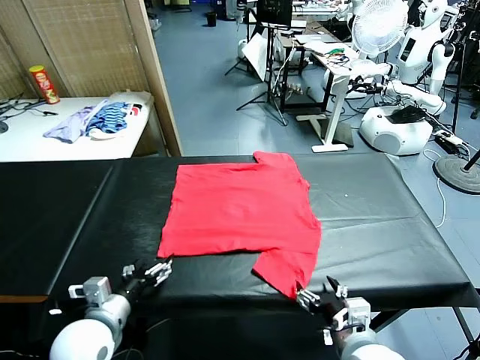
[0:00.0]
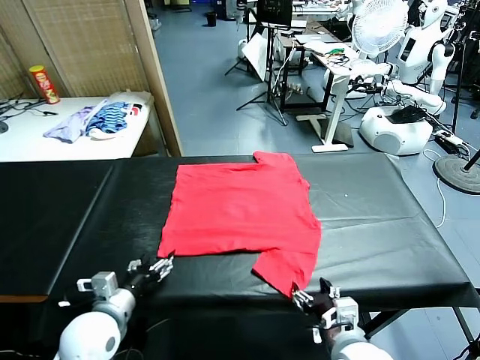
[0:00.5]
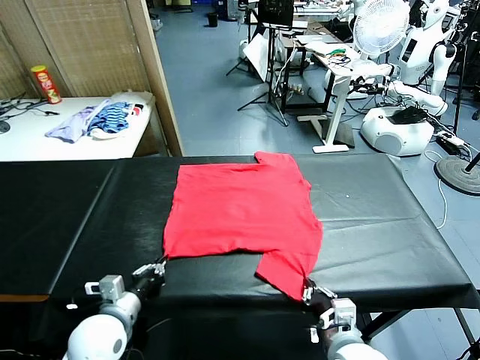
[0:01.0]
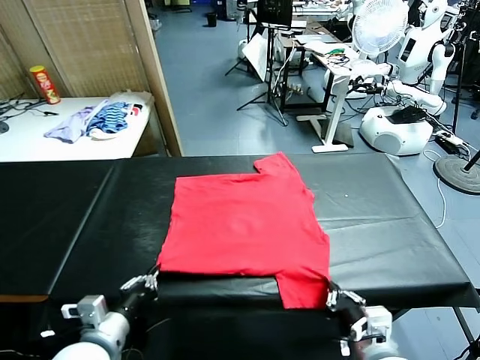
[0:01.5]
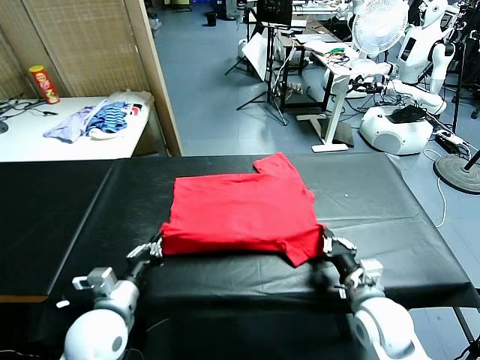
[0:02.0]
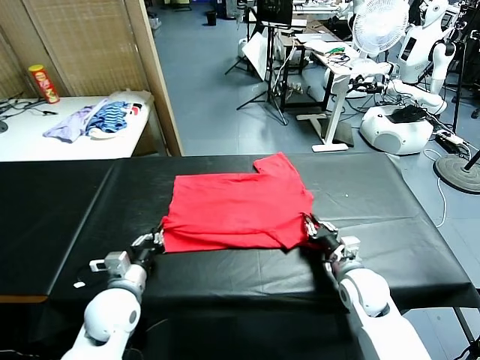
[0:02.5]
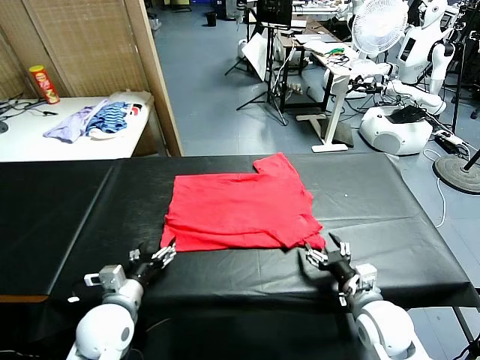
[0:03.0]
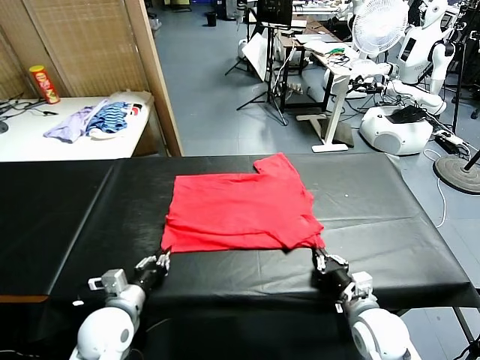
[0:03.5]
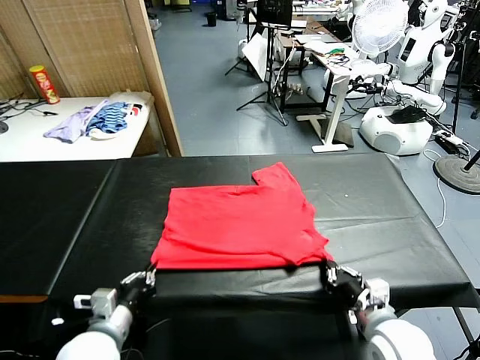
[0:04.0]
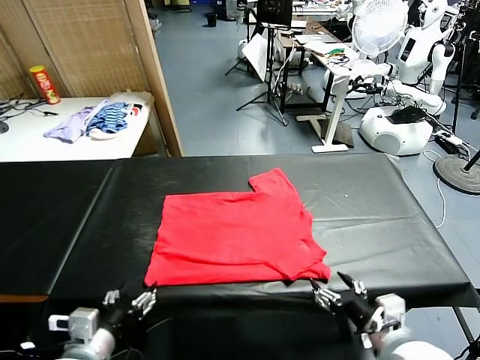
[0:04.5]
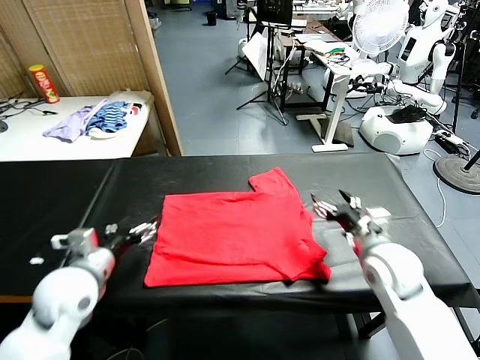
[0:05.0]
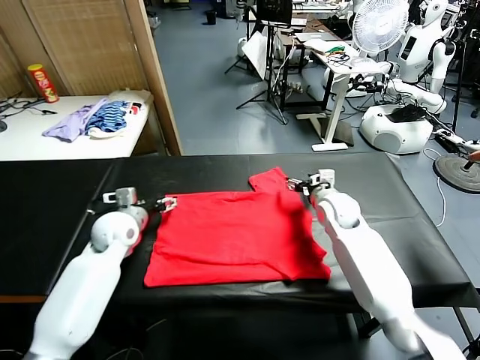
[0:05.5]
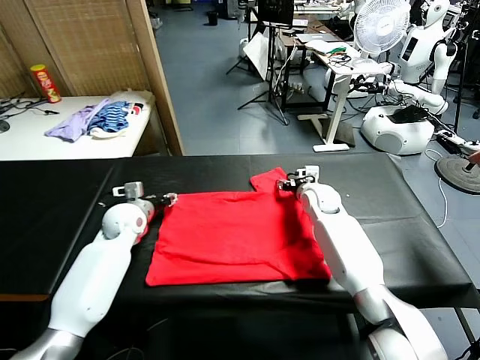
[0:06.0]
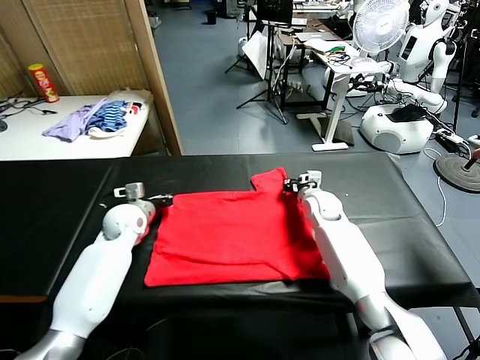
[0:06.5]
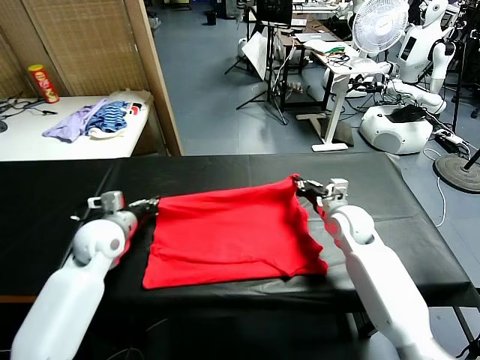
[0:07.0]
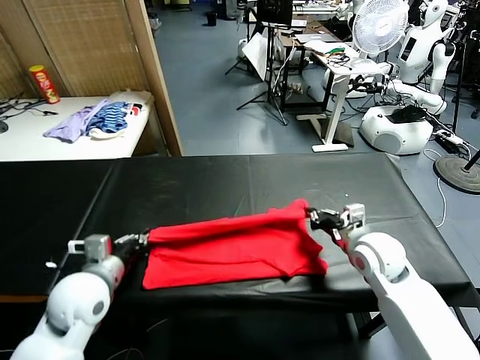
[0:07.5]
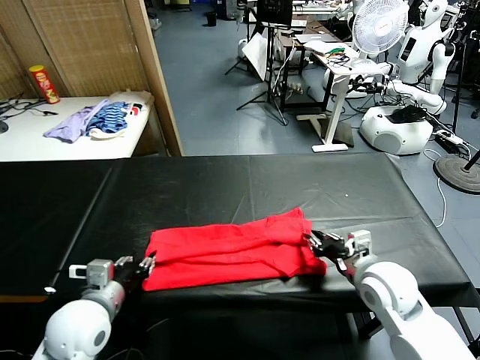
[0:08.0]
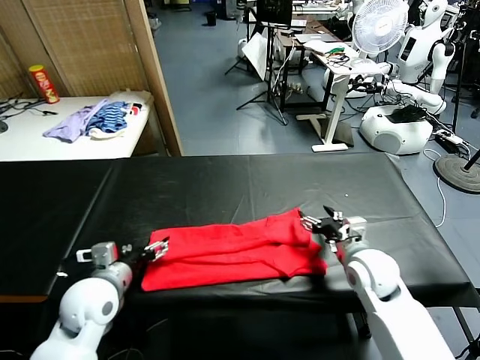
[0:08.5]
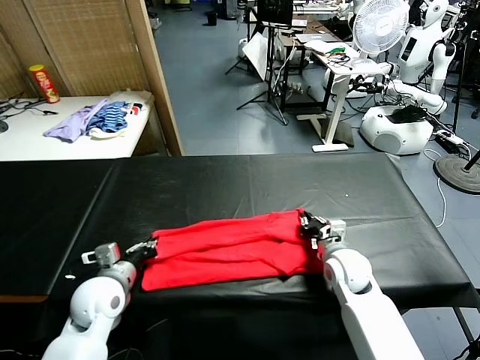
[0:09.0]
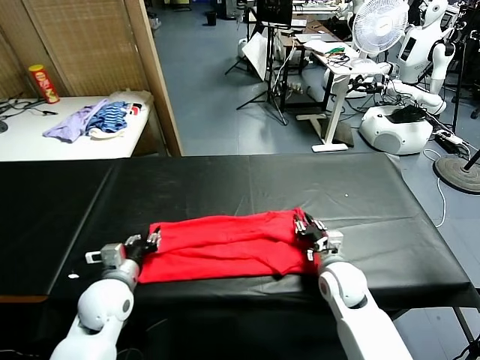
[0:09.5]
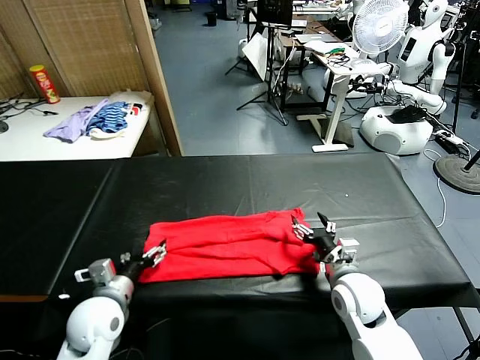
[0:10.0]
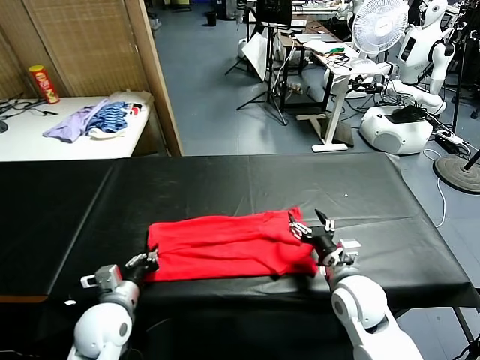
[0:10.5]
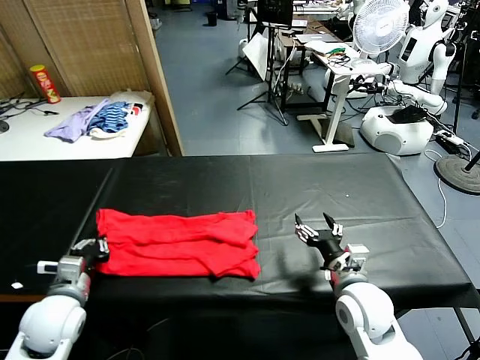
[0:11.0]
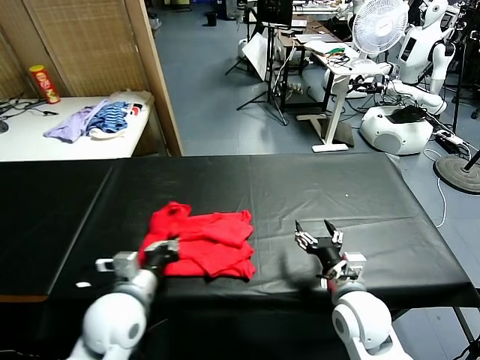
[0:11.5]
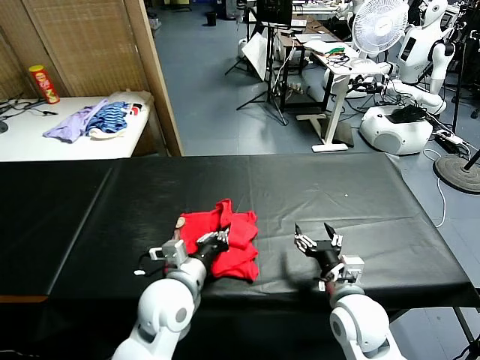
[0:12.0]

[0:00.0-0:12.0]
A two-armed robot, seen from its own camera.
Task of the whole recording: fold and organize the clothes.
Step, 0:00.0 to 0:01.0: use both grippers simultaneously to clamp the lower edge of the clothing fabric.
Step, 0:01.5 to 0:02.5: use both grippers to drag the lower edge of the fabric forward and fold it over the upper edge.
Step, 0:03.0 to 0:04.5: Drag the clothes downward with both gripper.
Step, 0:05.0 to 0:06.5: use both grippers simultaneously to clamp the upper edge of the clothing fabric.
Step, 0:07.0 to 0:08.0: use both grippers to drag the upper edge of the fabric backward and fold it over the lower edge.
Step, 0:08.5 to 0:10.5: use the left gripper to clamp the left edge of the fabric.
0:02.0 to 0:04.0: The left gripper shifts roughly 10 cm backward, and opens, then closes once more. The right gripper goes roughly 15 cm backward, and opens, then closes once more.
0:04.0 to 0:06.0: The grippers both shift forward by some 35 cm. The left gripper opens, then closes again. The right gripper opens, then closes once more.
0:06.0 to 0:08.0: Both grippers move backward, some 25 cm. The right gripper opens; the left gripper opens its fingers.
0:08.0 to 0:10.0: The left gripper travels downward by about 5 cm, and closes, then reopens; the right gripper heads downward and to the left, covering approximately 10 cm, and closes, then opens again.
0:10.0 to 0:12.0: The left gripper travels to the right by about 15 cm, and closes up, while the right gripper ends up approximately 5 cm from where it was.

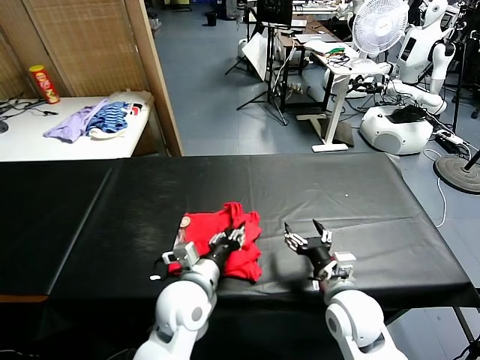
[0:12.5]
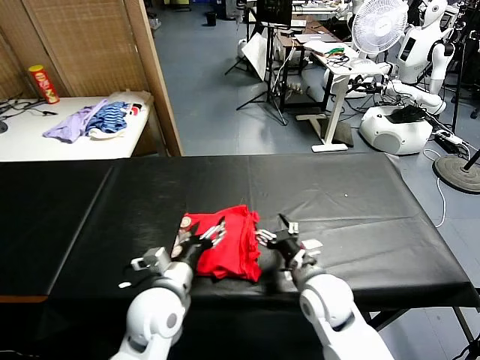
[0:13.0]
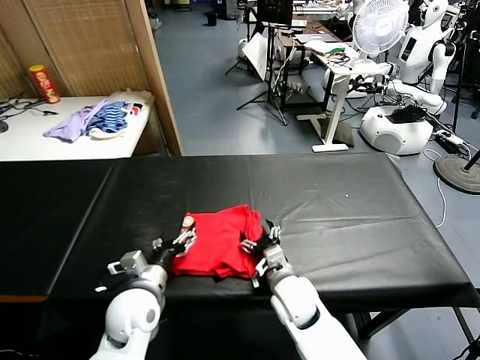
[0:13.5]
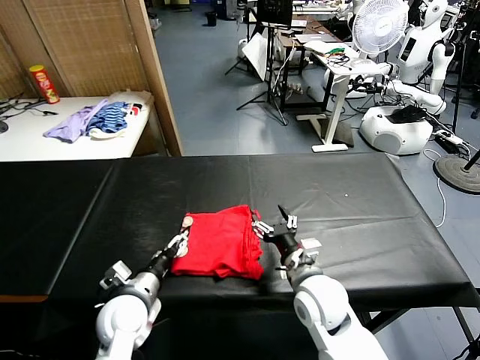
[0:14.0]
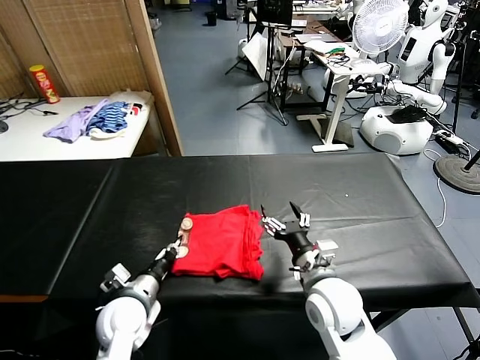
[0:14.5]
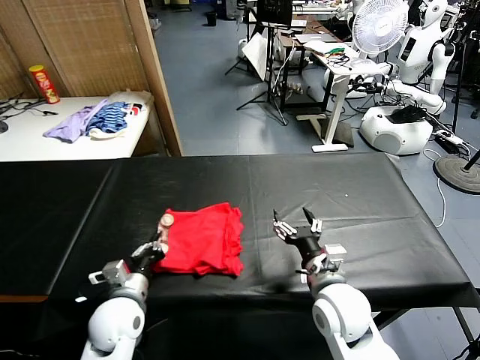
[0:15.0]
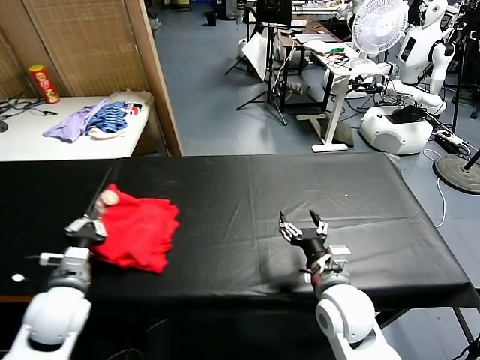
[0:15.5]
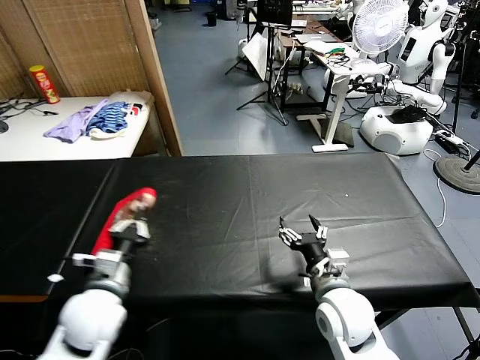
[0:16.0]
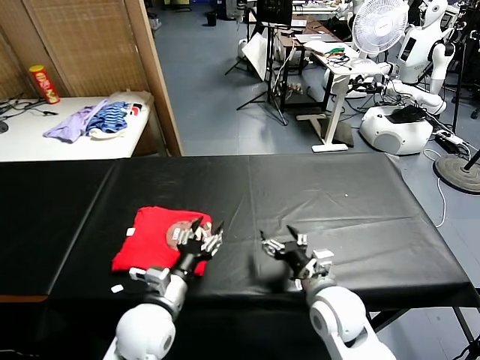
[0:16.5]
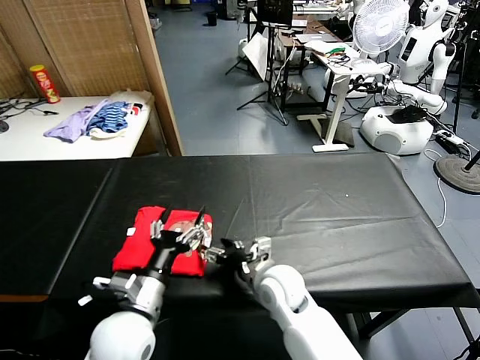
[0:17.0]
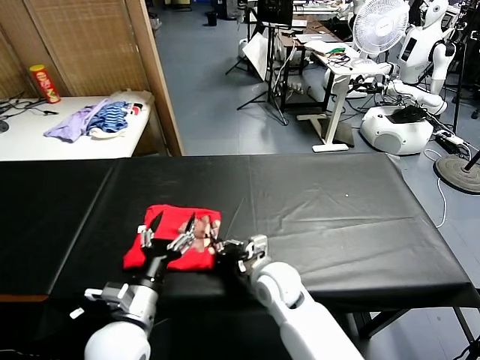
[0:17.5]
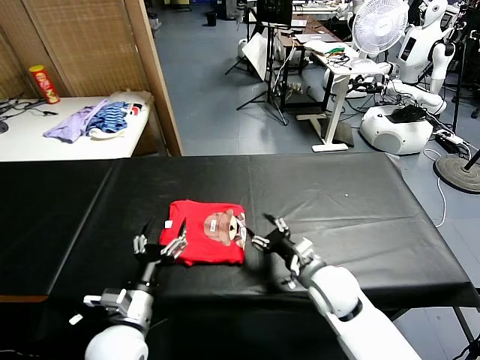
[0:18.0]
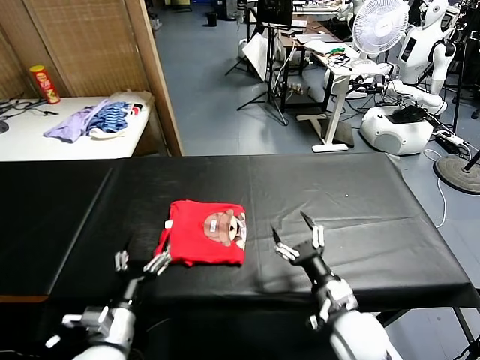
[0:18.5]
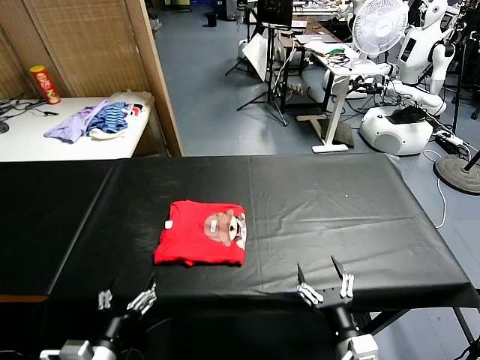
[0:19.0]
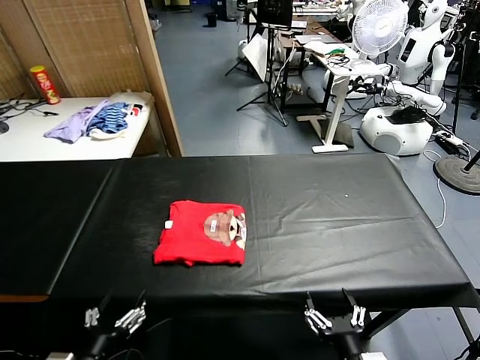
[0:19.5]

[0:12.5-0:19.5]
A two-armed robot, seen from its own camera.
Task of the whole recording: fold and organize the clothes.
Step, 0:13.0 to 0:16.0: Flip the folded clothes over with left gripper.
Step, 0:17.0 to 0:18.0: Drag the clothes to the center of the table.
0:12.5 to 0:14.5: The left gripper goes about 15 cm to the left and downward, and closes up.
0:14.5 to 0:16.0: The left gripper shifts some 10 cm upward, and reaches about 10 cm to the left, then returns.
0:16.0 to 0:17.5: The right gripper travels to the left and forward by roughly 15 cm, and closes its fingers; the left gripper heads to the right, covering some 5 cm, and opens its fingers.
0:17.5 to 0:19.5: The right gripper shifts some 30 cm backward and to the right, and opens; the left gripper heads backward and to the left, covering about 15 cm.

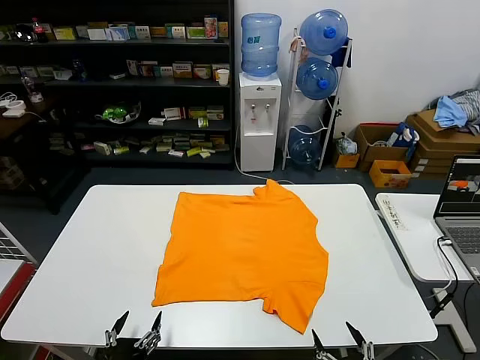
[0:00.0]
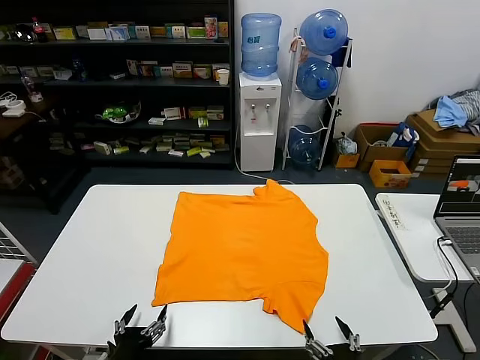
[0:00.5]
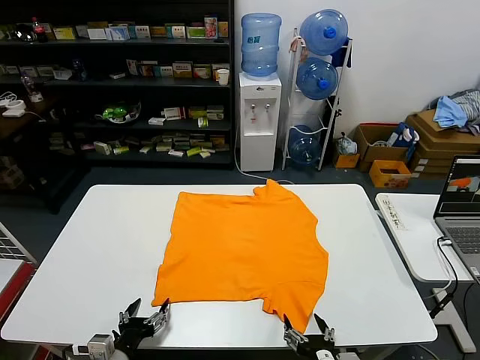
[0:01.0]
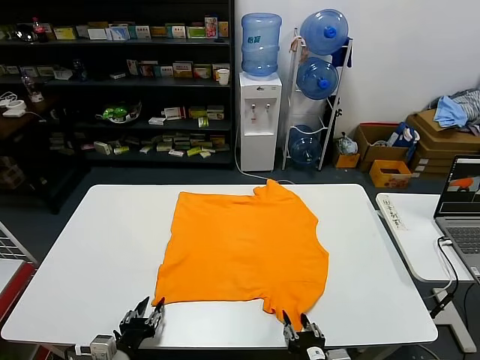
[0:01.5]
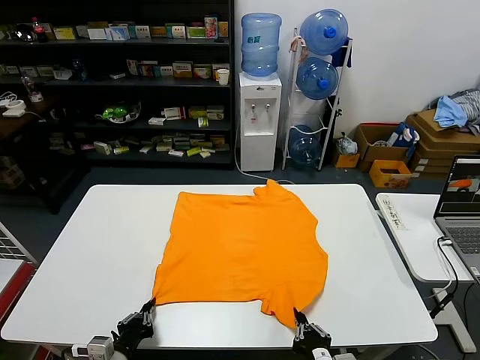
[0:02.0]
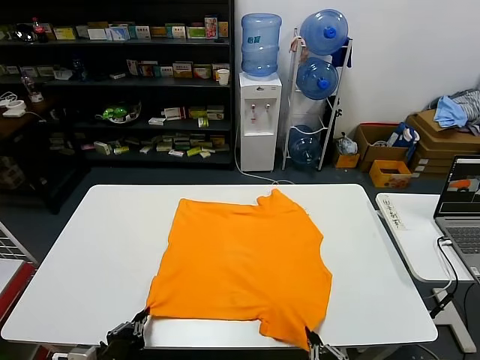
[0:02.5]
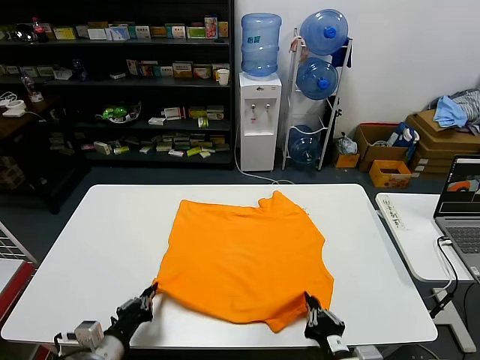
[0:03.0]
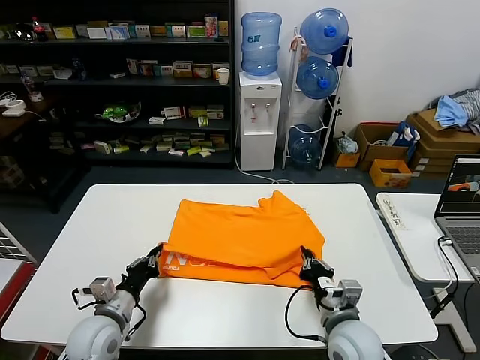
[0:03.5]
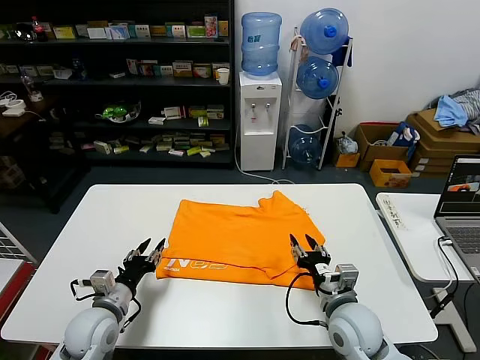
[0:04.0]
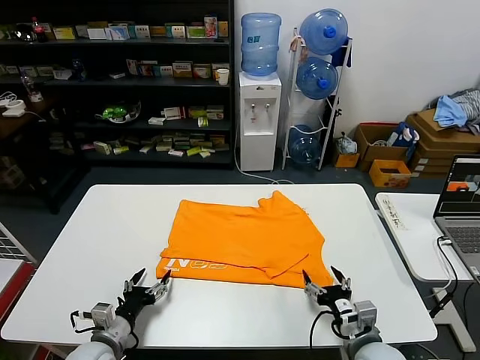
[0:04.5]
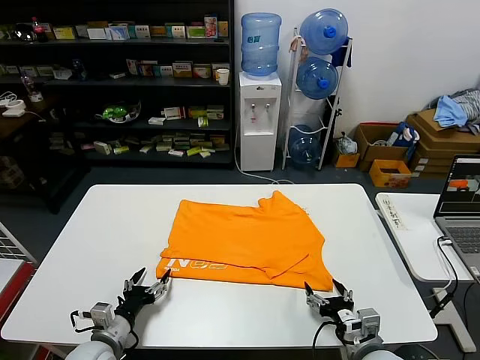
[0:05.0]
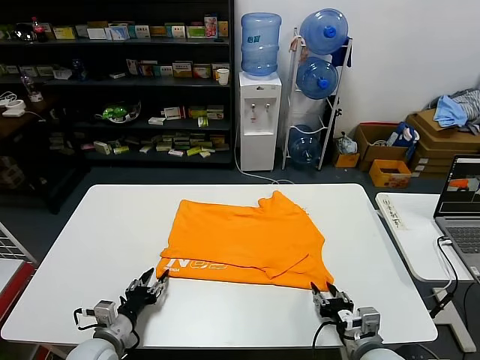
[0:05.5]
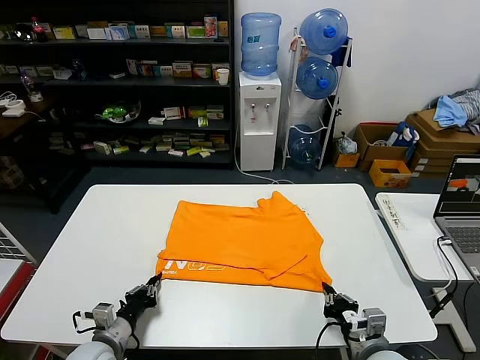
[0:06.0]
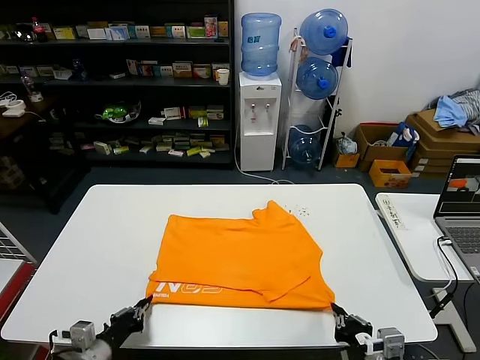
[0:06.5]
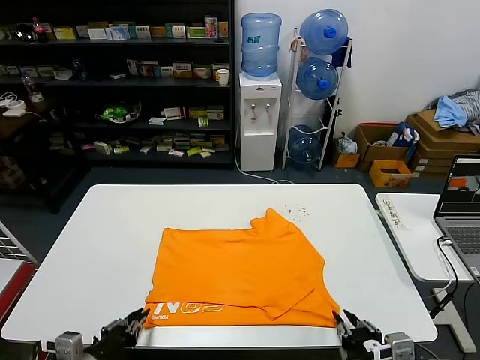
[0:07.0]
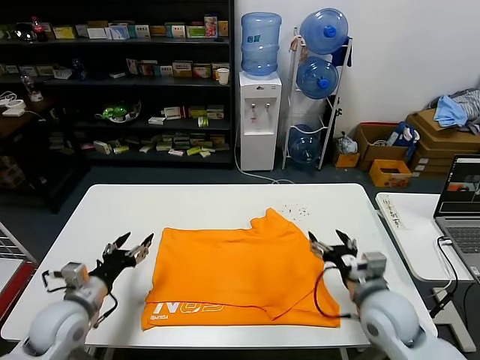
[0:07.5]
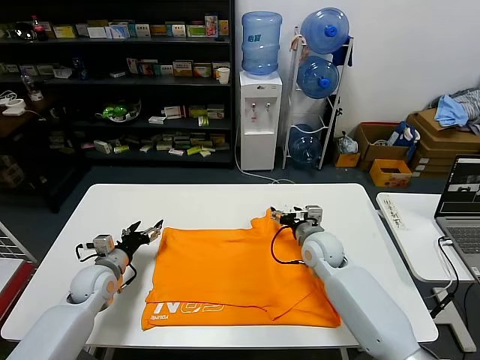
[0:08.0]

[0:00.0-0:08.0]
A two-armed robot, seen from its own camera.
Task of the whole recording: fold and organize the clothes.
Step, 0:00.0 to 0:02.0: use both grippers simultaneously to clamp the lower edge of the clothing fabric.
Step, 0:02.5 to 0:03.5: use both grippers to drag the lower edge of the fabric forward and fold it over the upper edge.
Step, 0:04.0 to 0:07.0: Drag the clothes downward with both gripper.
0:02.0 to 0:04.0: The grippers both shift forward by about 15 cm. The right gripper opens up. Meanwhile the left gripper opens up.
0:04.0 to 0:06.0: The right gripper goes approximately 10 cm backward and to the right, and closes its fingers. The left gripper goes approximately 10 cm downward and backward, and closes its fingers.
0:06.0 to 0:08.0: The right gripper moves forward, some 25 cm, and opens up, while the left gripper moves forward, approximately 15 cm, and opens its fingers.
